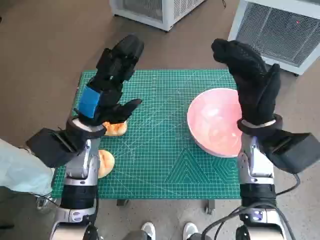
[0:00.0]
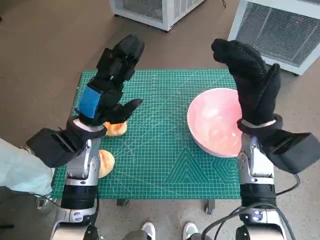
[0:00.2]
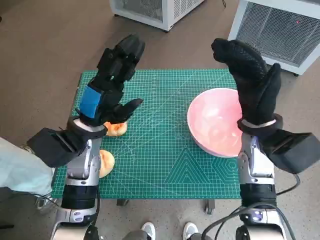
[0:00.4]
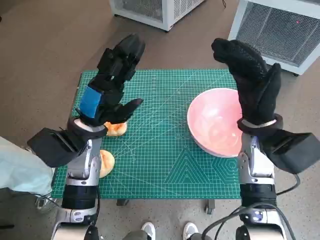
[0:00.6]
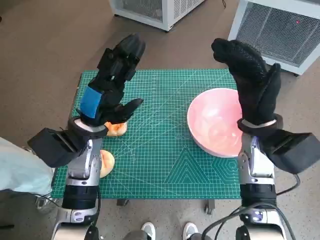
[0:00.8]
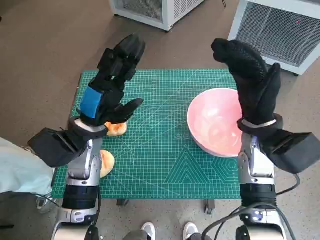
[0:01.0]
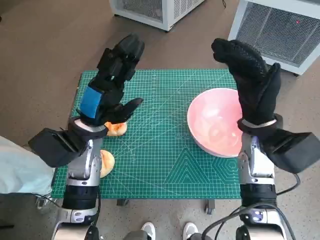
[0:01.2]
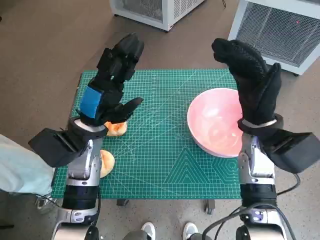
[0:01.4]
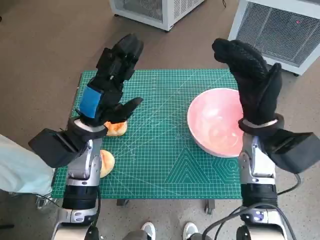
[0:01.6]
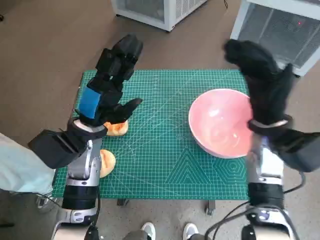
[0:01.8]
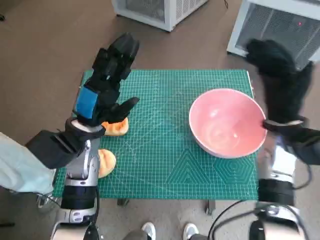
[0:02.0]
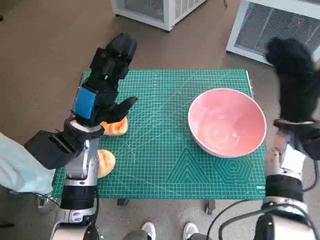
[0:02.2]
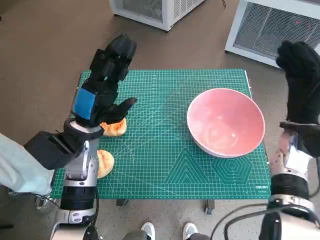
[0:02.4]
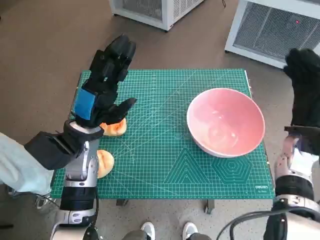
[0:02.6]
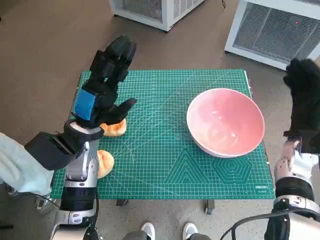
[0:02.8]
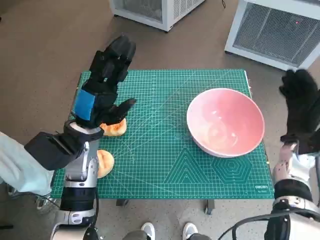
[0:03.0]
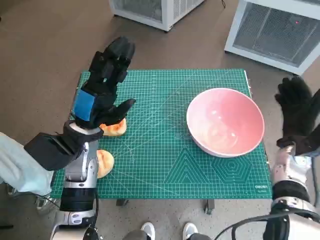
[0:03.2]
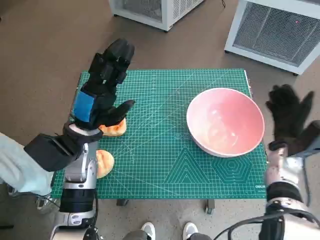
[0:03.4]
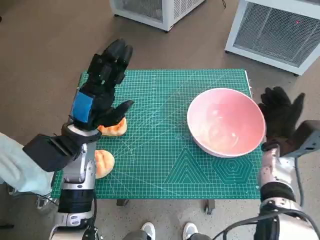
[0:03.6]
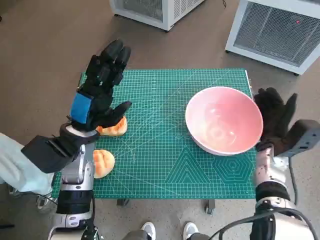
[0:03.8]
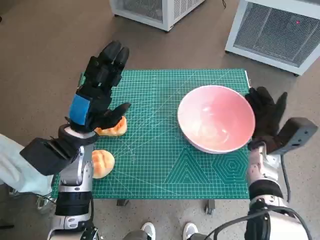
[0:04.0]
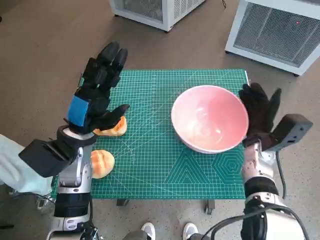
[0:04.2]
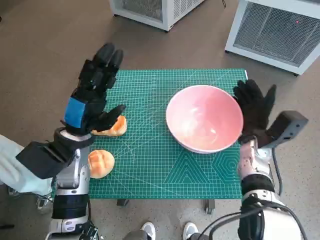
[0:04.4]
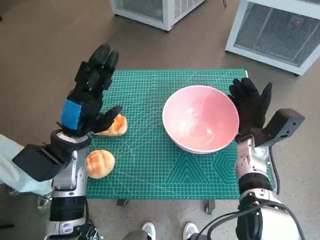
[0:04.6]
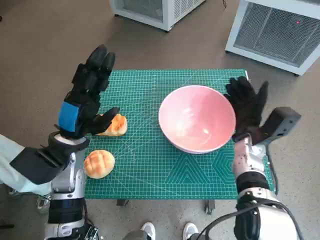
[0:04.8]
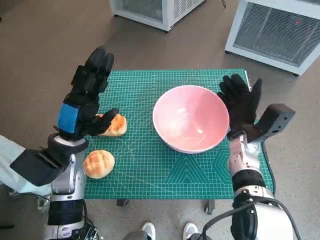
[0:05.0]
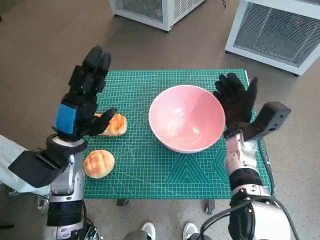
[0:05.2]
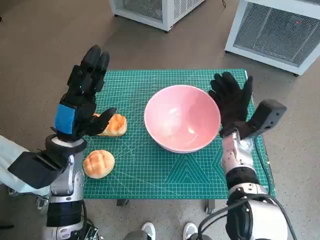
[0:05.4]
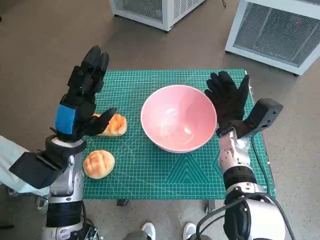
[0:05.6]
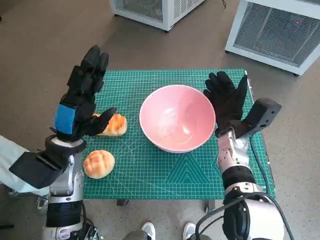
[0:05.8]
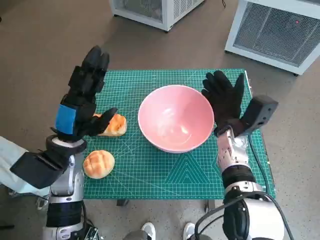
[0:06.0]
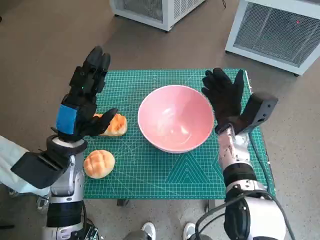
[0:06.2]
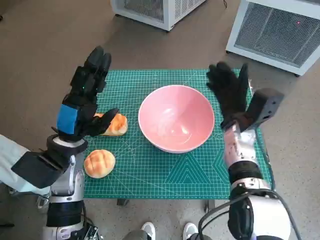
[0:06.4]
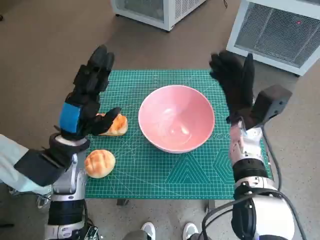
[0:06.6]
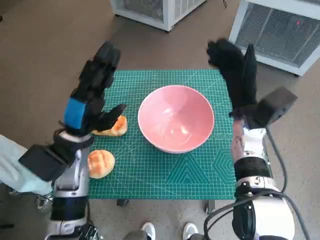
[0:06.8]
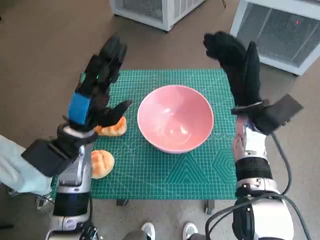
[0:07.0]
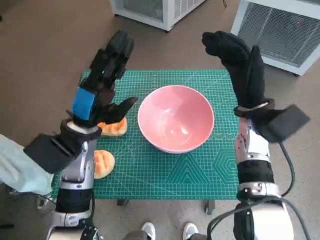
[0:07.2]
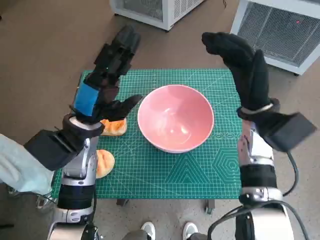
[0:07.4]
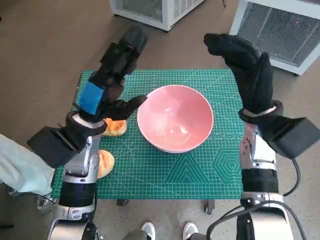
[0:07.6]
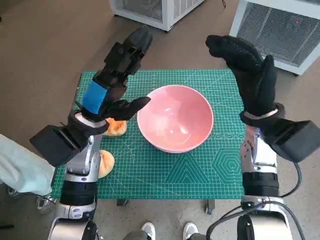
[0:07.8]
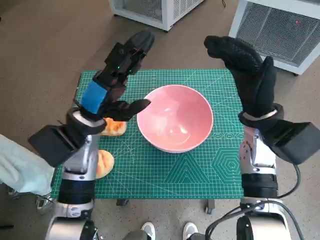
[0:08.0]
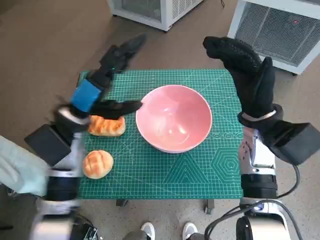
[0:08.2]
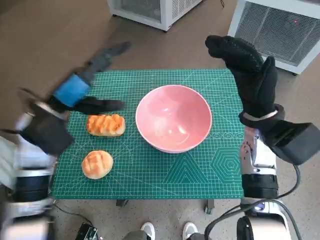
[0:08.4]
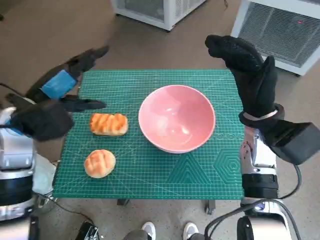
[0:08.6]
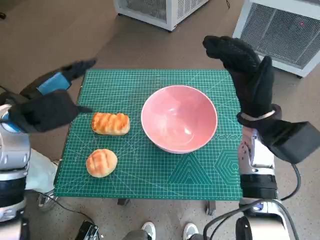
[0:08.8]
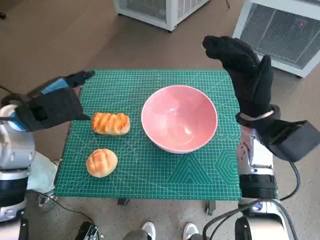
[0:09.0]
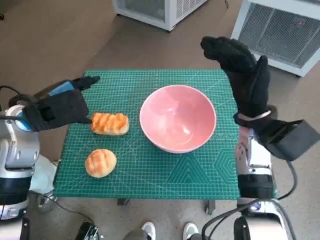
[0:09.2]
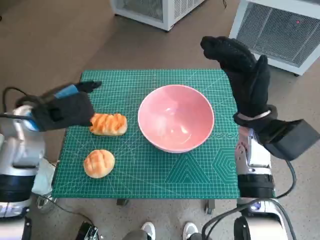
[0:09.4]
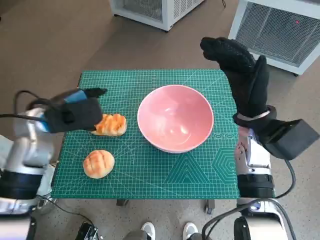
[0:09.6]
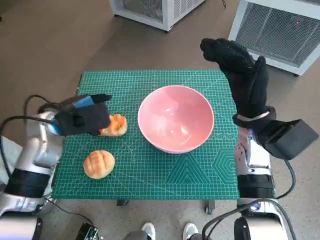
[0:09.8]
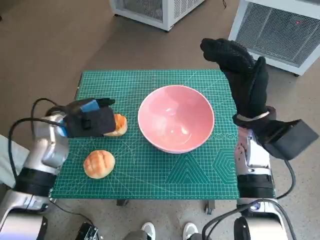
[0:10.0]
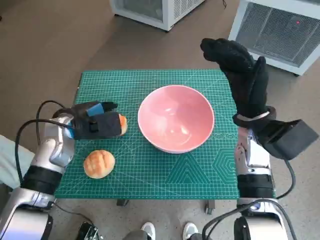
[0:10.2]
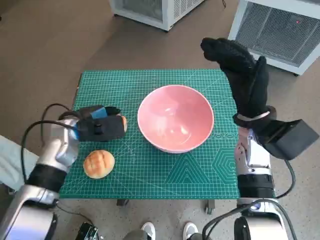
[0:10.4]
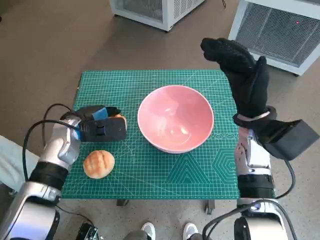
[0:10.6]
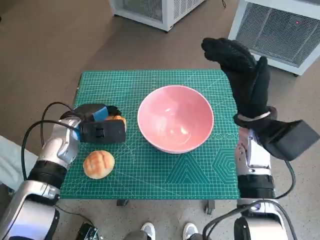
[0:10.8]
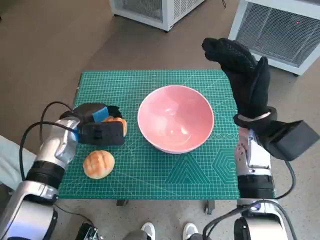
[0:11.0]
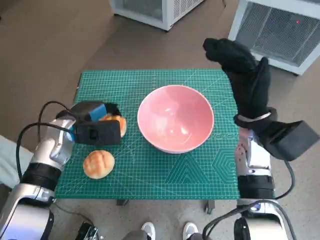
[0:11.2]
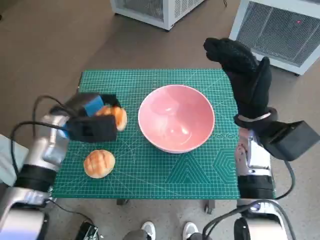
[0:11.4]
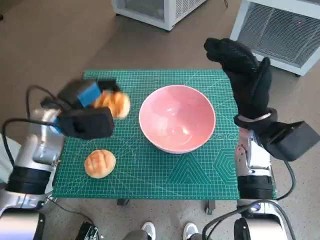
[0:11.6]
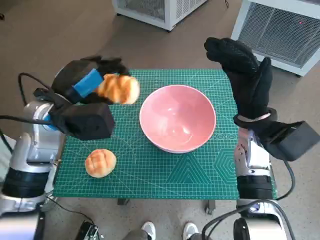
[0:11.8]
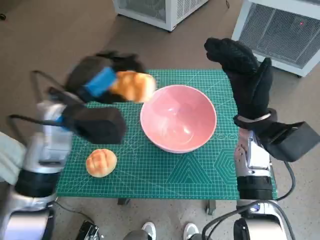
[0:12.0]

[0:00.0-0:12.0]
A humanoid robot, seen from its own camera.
Task of the whole recording: Push the bowl into the center of the table and put the bread into the bowl.
Step, 0:00.0 to 0:06.2: Move the pink bowl to the center of table with right hand.
Step, 0:06.4 to 0:10.6: Grasp the long bread with left hand.
0:01.6 to 0:03.0: The right hand shifts some 15 cm to the right and downward.
0:03.0 to 0:04.4: The right hand goes some 5 cm to the left.
0:04.4 to 0:06.0: The right hand goes roughly 5 cm to the left.
0:06.0 to 0:07.6: The right hand heads upward, covering some 10 cm, while the left hand shifts by about 5 cm.
0:07.6 to 0:09.0: The left hand moves to the left and upward, some 10 cm.
0:09.0 to 0:10.4: The left hand travels downward by roughly 10 cm.
0:10.4 to 0:12.0: The left hand goes roughly 10 cm upward.

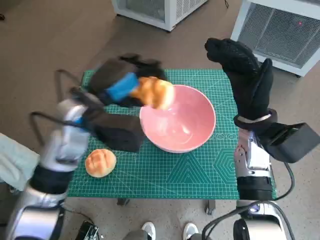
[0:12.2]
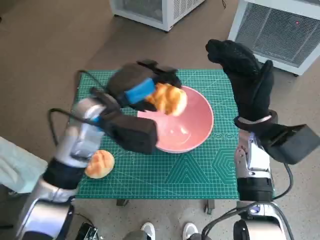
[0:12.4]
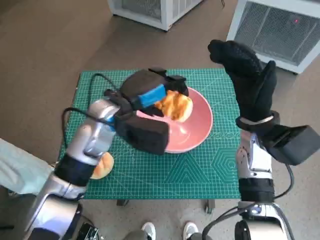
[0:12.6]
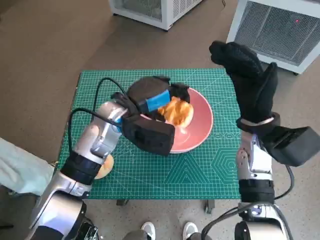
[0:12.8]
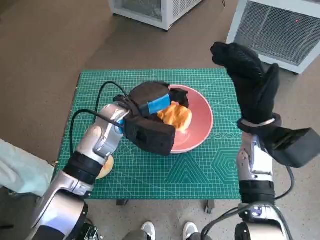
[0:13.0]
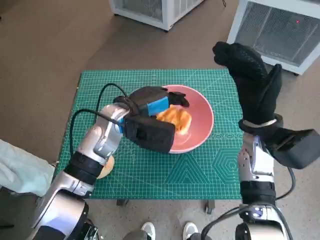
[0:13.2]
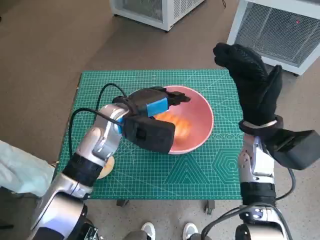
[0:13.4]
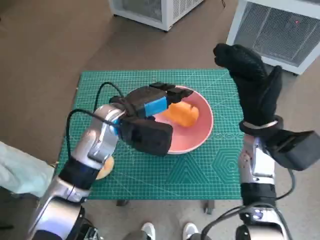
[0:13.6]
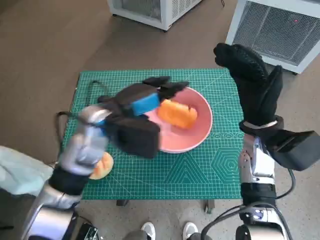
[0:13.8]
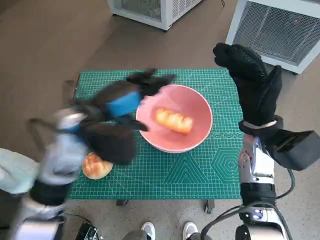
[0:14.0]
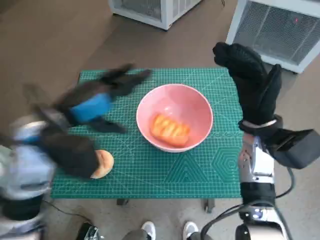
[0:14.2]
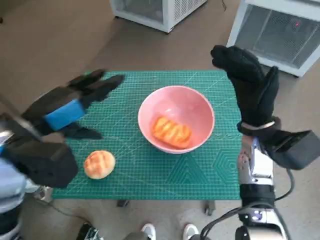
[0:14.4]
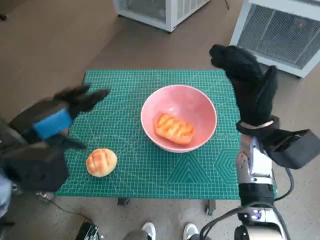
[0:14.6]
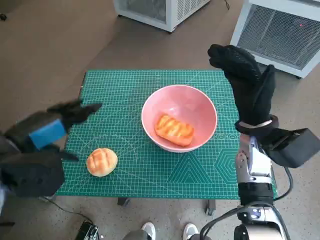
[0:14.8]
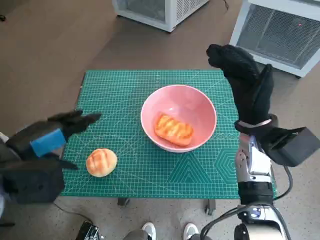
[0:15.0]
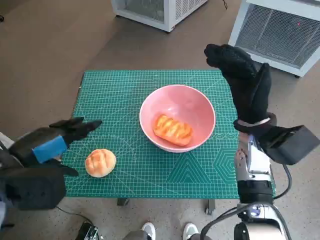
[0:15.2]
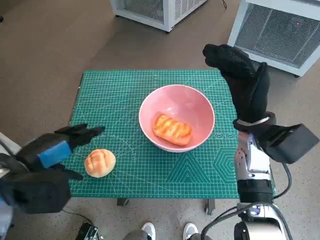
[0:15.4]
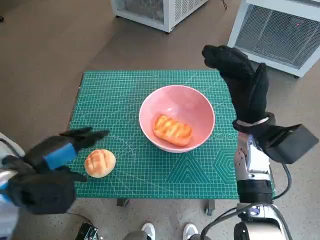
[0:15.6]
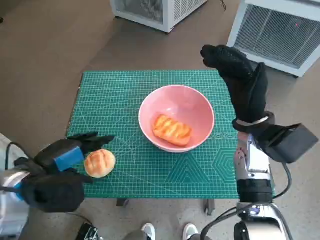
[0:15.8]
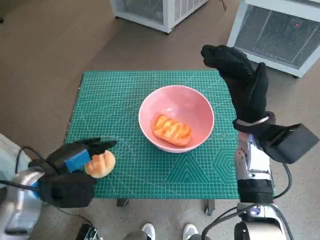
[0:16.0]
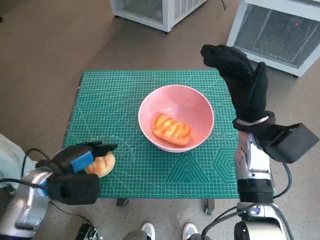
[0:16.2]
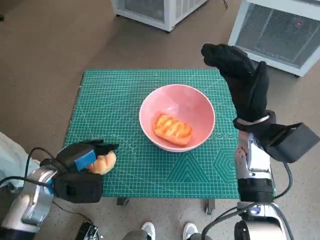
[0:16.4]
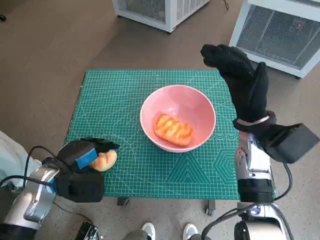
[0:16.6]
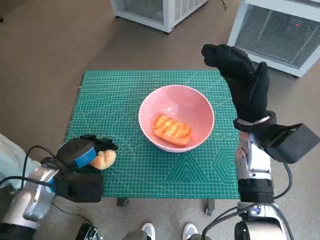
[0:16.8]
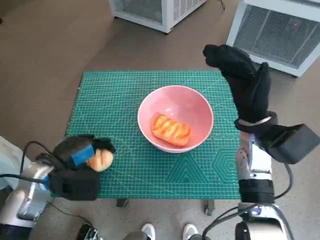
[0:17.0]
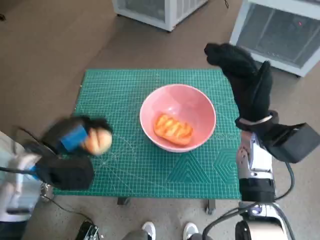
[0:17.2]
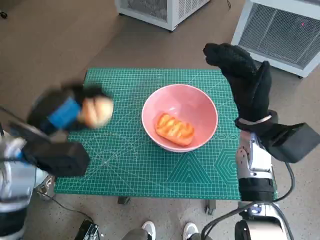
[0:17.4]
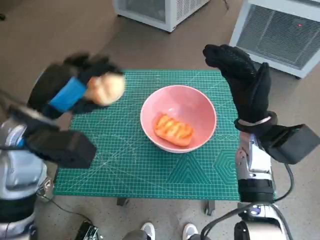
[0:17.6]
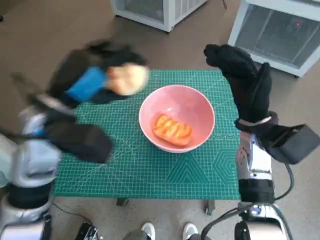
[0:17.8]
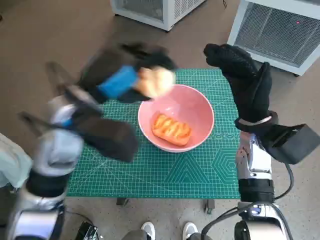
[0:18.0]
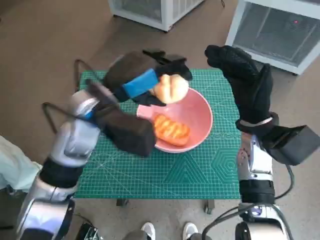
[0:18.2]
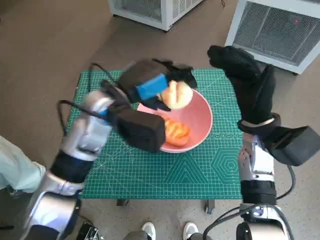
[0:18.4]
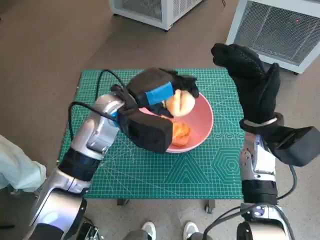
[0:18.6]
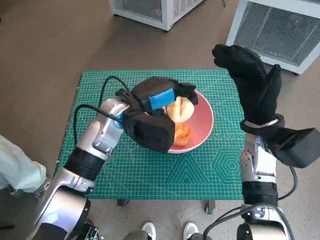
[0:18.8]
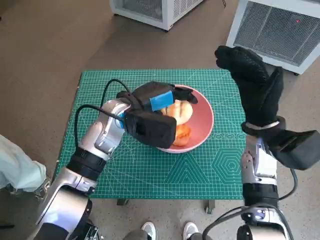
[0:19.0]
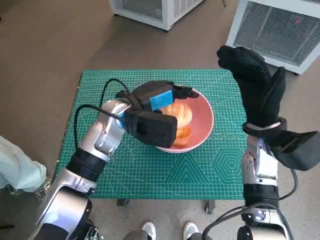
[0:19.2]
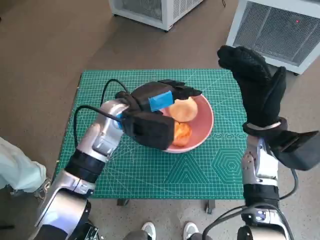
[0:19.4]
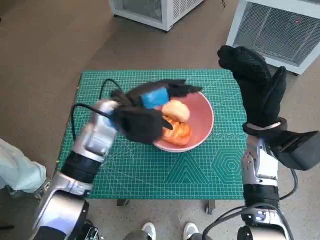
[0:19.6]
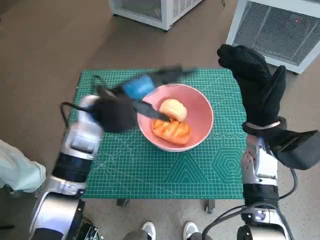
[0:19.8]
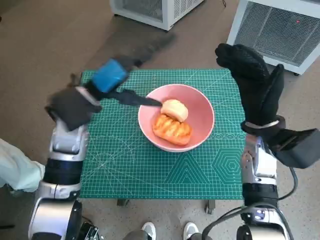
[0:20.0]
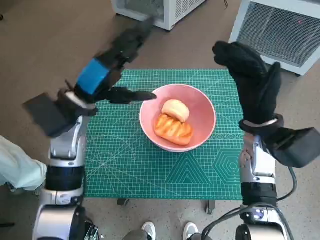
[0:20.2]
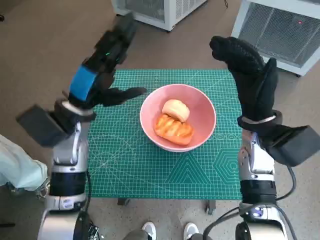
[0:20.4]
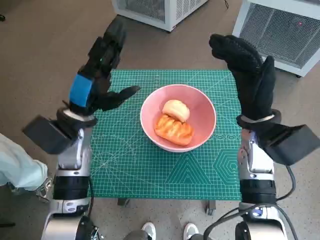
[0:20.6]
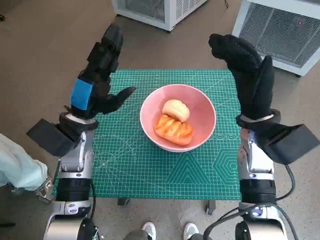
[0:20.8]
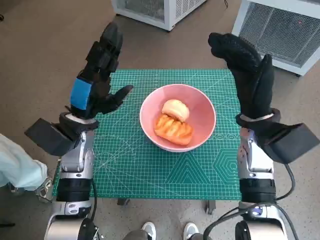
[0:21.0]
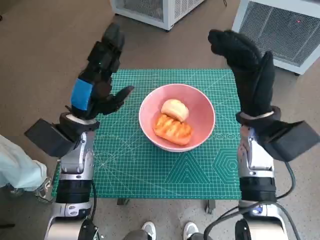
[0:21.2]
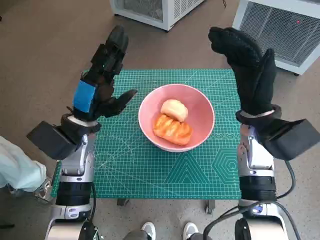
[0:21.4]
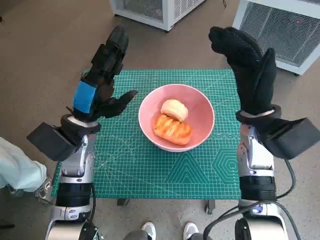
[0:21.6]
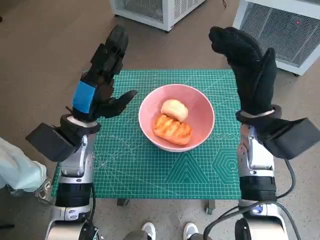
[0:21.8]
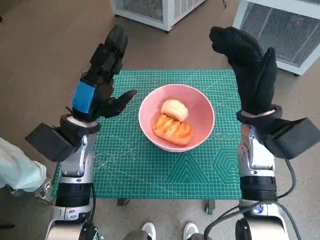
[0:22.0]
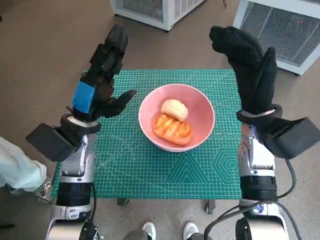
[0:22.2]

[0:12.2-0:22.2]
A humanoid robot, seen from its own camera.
Task of the whole recording: Push the bowl into the center of the table and put the bread into the bowl.
Step, 0:12.2 to 0:13.8: Place the long bread in pink bowl with left hand.
Step, 0:14.0 to 0:16.2: Grasp the round bread with left hand.
Step, 0:16.4 to 0:19.8: Place the round bread in pink bowl with left hand.
0:12.2 to 0:13.6: The left hand travels to the right by about 5 cm.
0:13.6 to 0:15.0: The left hand travels to the left and backward by roughly 20 cm.
0:15.0 to 0:16.4: The left hand shifts about 10 cm downward.
0:16.4 to 0:18.0: The left hand goes about 20 cm upward and to the right.
0:18.0 to 0:19.4: The left hand shifts approximately 10 cm downward and forward.
0:19.4 to 0:20.8: The left hand travels to the left by approximately 10 cm.
0:20.8 to 0:22.2: Both hands stay put.
